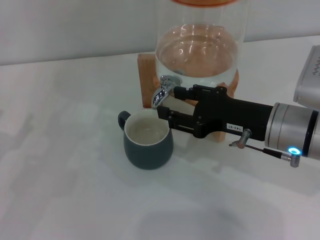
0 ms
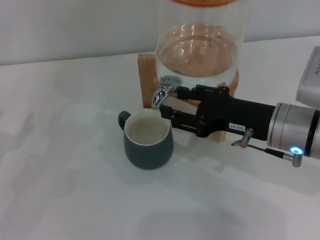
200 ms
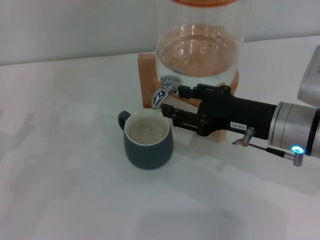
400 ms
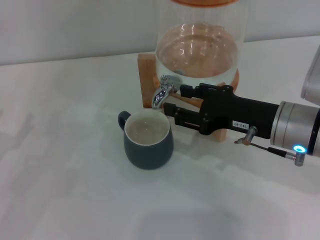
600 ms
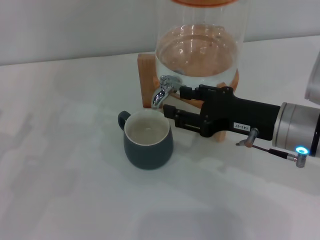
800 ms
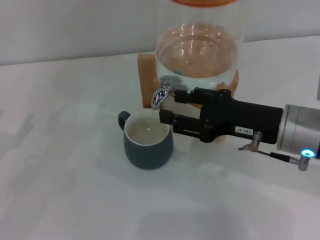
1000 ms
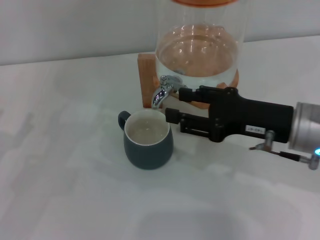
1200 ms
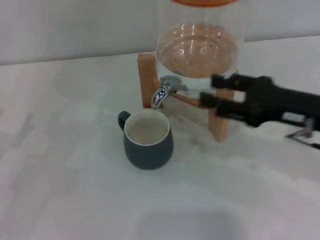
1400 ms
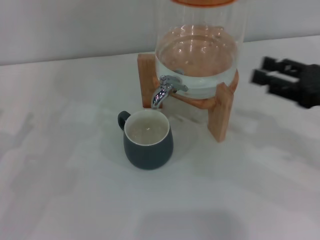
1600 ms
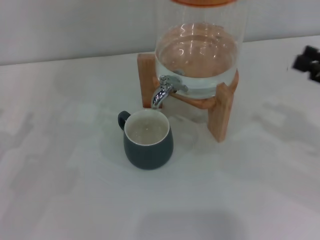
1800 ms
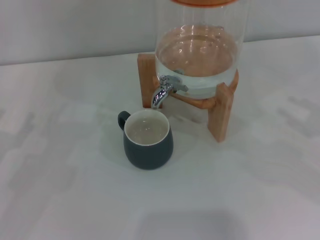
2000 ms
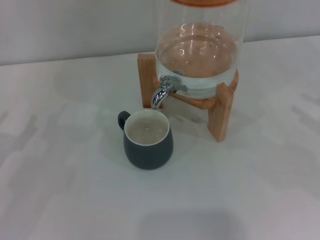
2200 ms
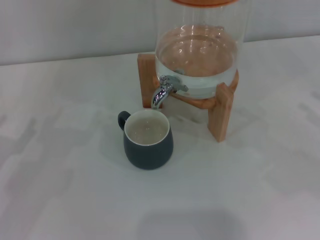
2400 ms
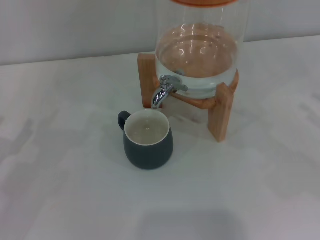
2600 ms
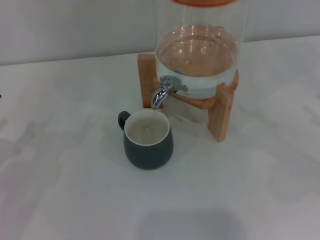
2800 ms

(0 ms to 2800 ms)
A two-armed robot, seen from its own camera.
Task of the whole recording: the left gripper pick up the black cup and place it horizontally under the faucet, the right gripper turn on the faucet to fill the cup, and then turn off the faucet.
0 ms - 1400 ms: The right gripper shifts roughly 5 cm to the right.
1400 ms - 2800 ms: The right gripper moves to the right, about 15 cm.

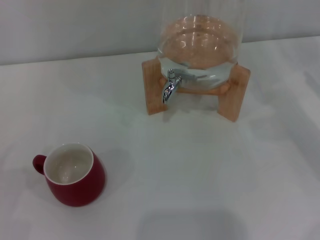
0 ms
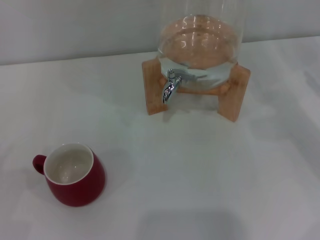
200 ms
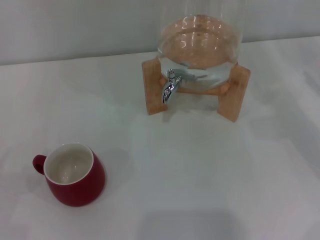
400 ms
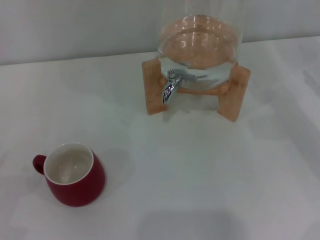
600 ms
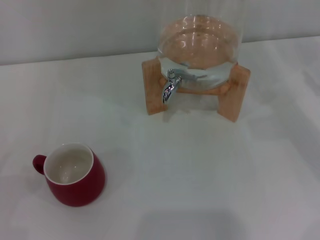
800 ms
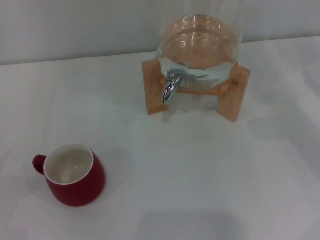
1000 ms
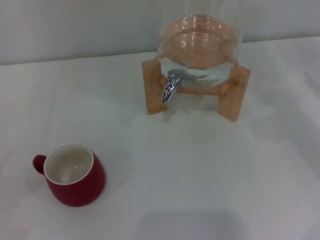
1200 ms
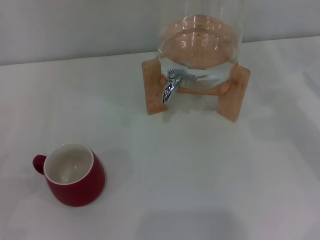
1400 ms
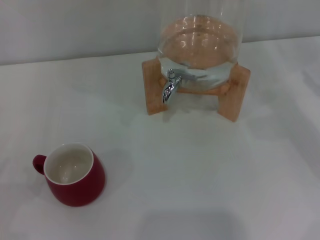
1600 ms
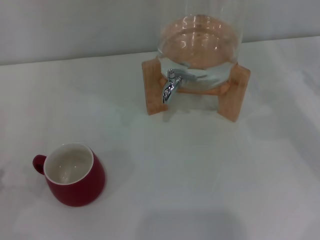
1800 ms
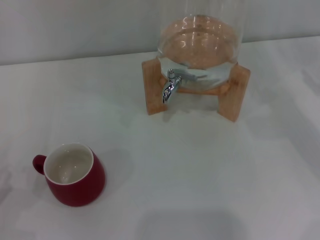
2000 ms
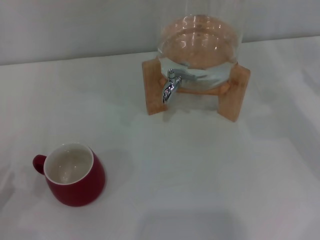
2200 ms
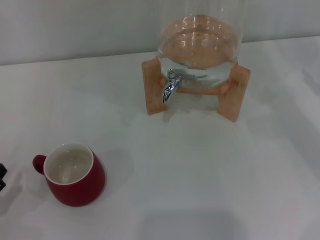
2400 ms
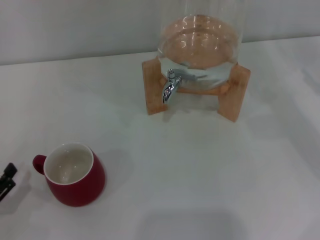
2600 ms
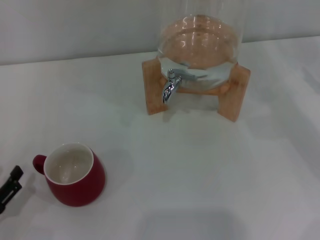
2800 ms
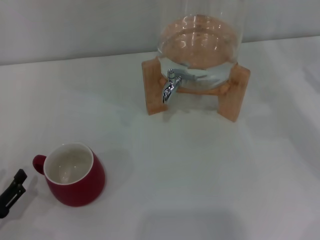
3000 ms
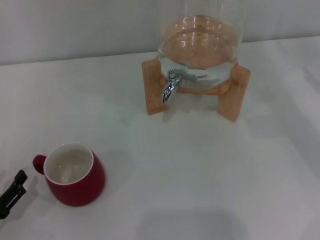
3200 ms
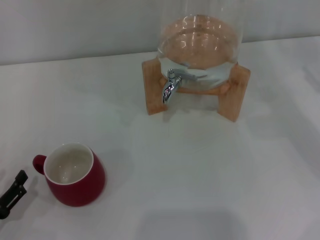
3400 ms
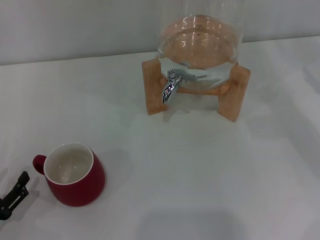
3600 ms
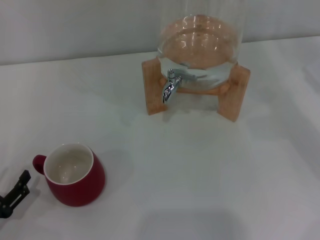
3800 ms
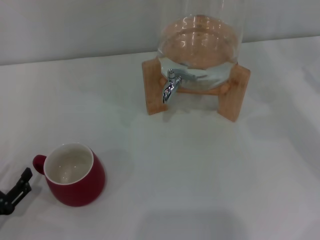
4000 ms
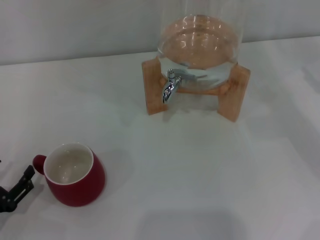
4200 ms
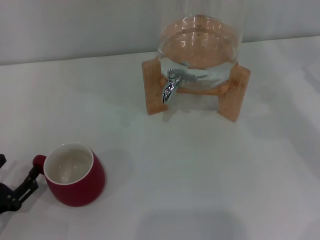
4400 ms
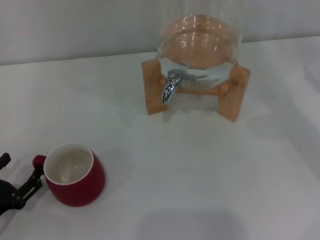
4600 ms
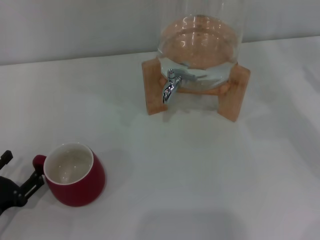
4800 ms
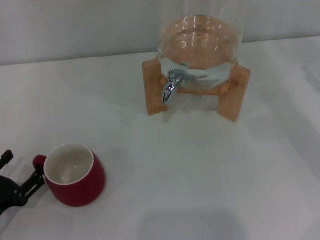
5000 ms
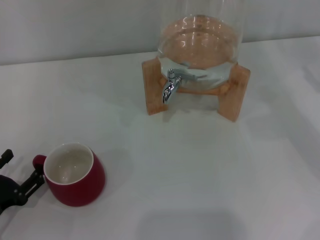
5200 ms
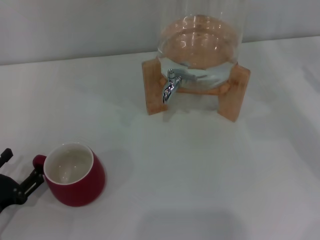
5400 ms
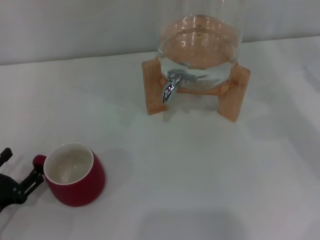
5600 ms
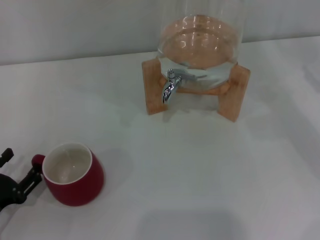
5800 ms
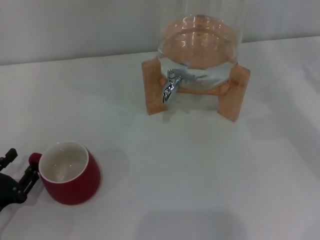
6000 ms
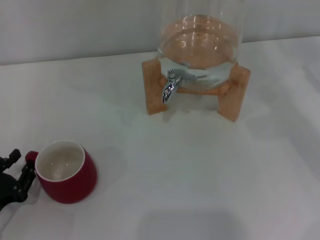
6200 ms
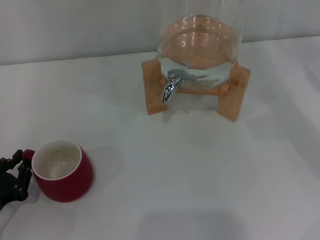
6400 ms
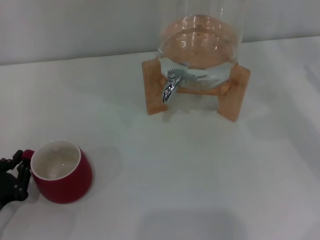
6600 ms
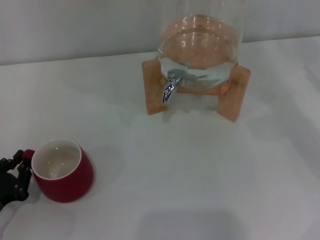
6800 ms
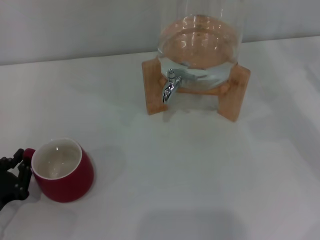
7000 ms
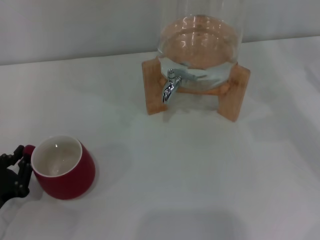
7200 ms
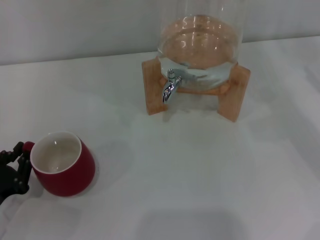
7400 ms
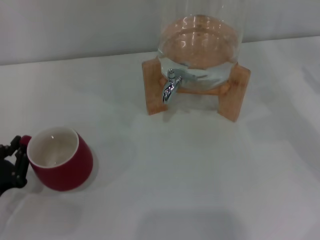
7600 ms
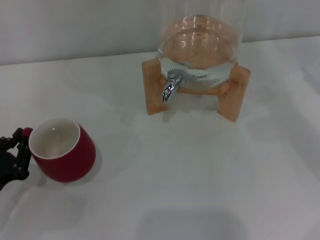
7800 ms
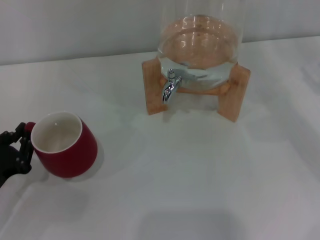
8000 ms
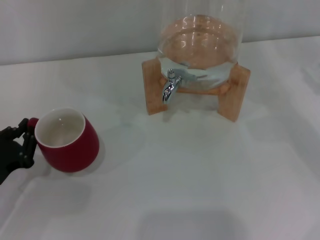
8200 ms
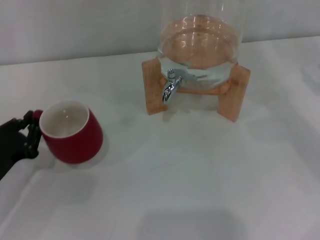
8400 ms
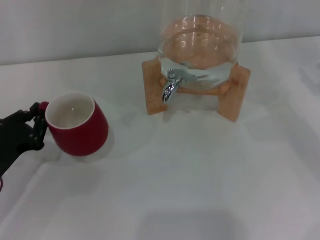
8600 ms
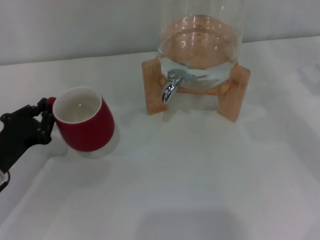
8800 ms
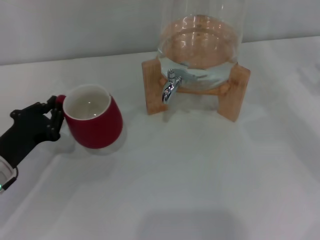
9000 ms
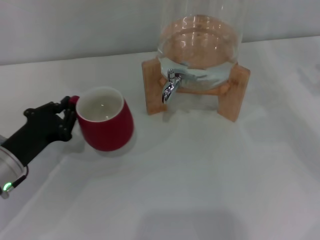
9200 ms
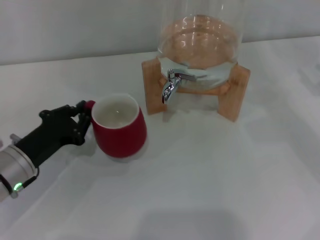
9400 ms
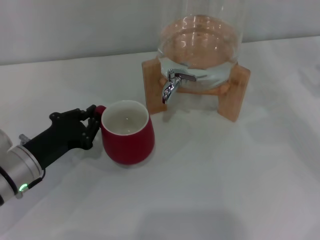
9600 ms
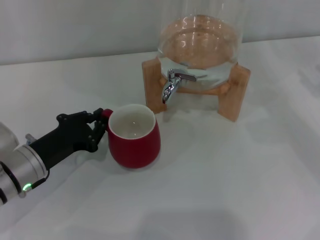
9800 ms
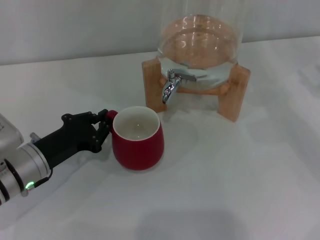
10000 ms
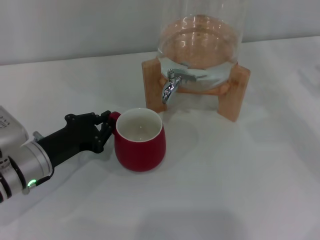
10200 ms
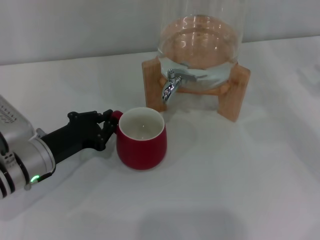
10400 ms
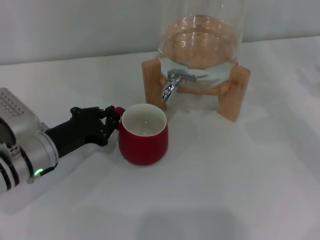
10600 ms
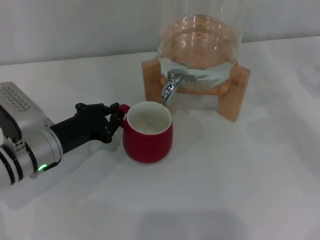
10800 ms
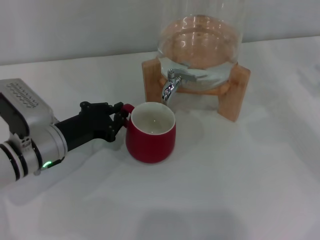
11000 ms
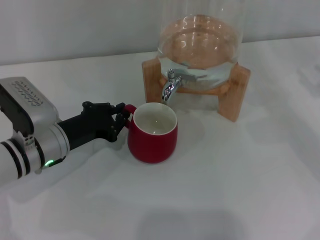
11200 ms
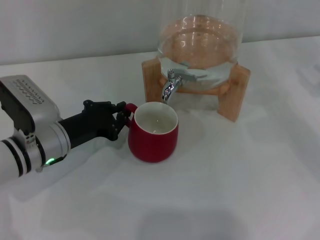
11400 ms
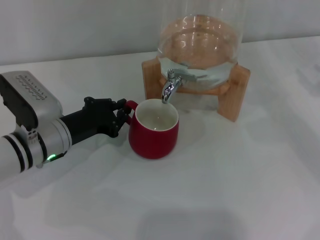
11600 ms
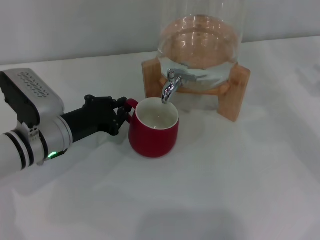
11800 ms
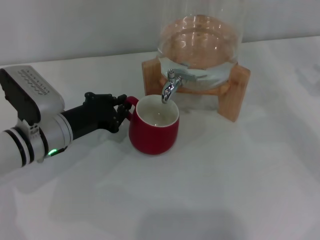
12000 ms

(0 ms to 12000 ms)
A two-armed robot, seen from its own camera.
Task of the whole recording: the left gripper pick up the red cup and place it horizontally under the faucet, the right gripper turn on the faucet to fill the cup, and then turn off the faucet.
1600 ms - 3000 ms: The left gripper heads to the right, covering approximately 5 cm.
3000 ms - 4400 ms: There are only small adjustments of the grippers.
4400 ms - 6000 ms: Both grippers stay about where they are.
6000 ms - 7600 ms: The left gripper closes its fingers.
7600 ms - 9000 ms: The left gripper travels forward by roughly 10 cm.
9000 ms - 10400 ms: The left gripper moves to the right, approximately 5 cm.
10400 ms - 12000 ms: The grippers stay close to where they were, moving slightly.

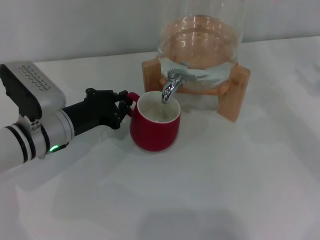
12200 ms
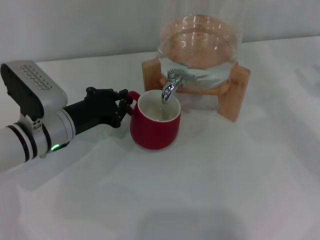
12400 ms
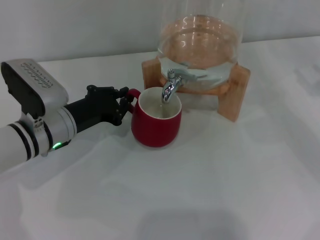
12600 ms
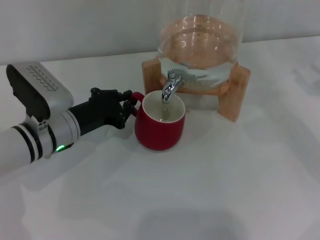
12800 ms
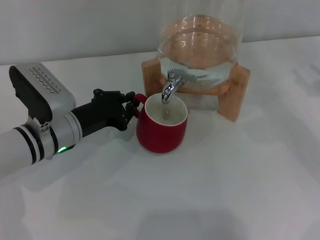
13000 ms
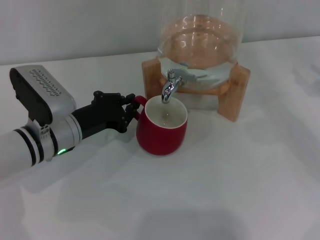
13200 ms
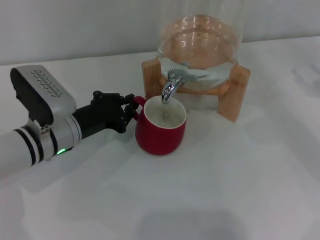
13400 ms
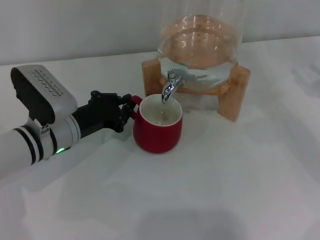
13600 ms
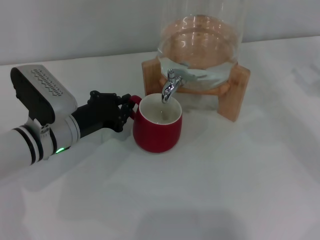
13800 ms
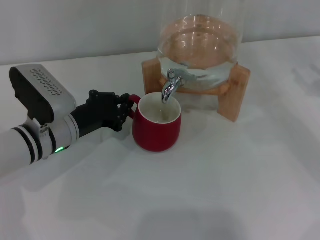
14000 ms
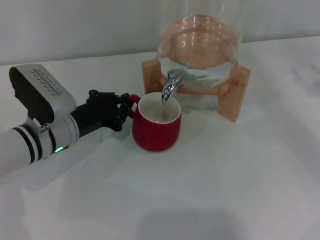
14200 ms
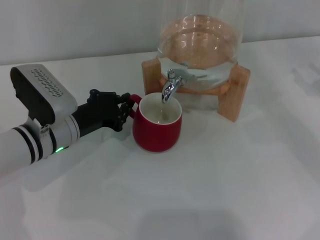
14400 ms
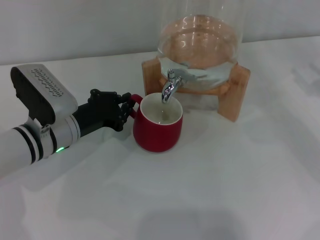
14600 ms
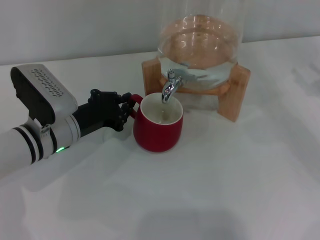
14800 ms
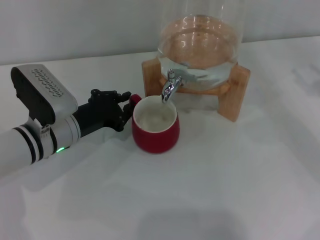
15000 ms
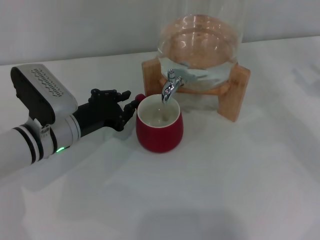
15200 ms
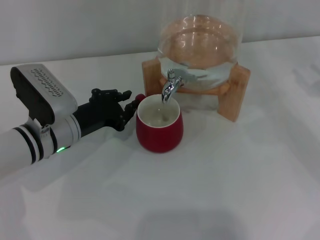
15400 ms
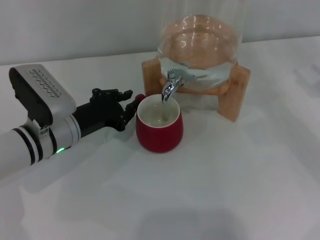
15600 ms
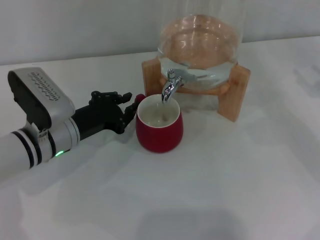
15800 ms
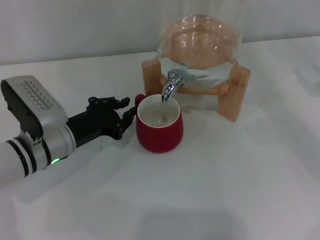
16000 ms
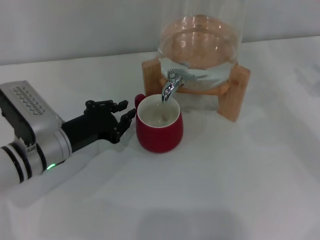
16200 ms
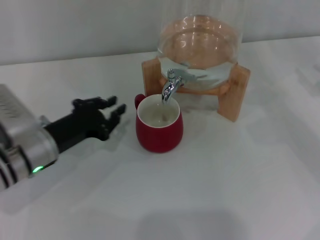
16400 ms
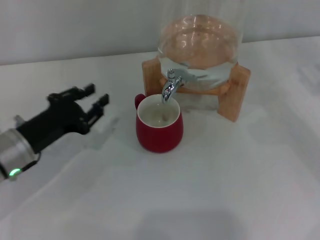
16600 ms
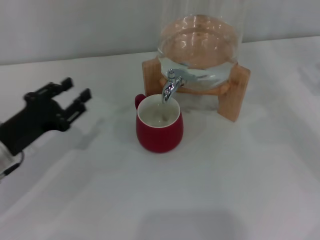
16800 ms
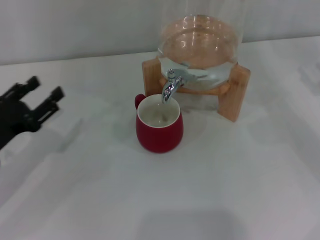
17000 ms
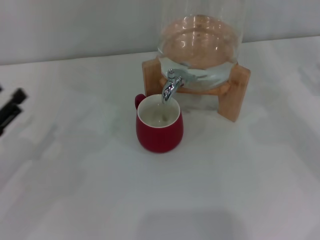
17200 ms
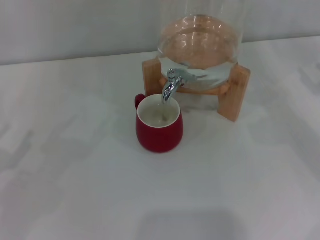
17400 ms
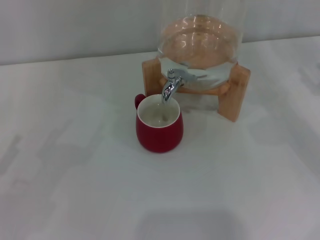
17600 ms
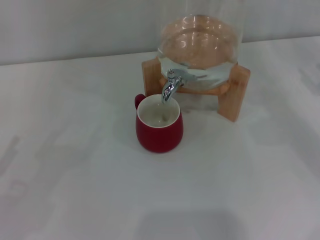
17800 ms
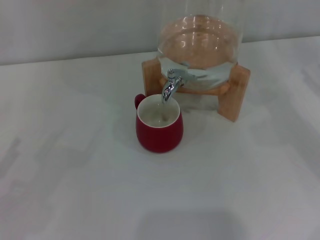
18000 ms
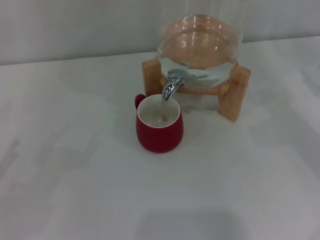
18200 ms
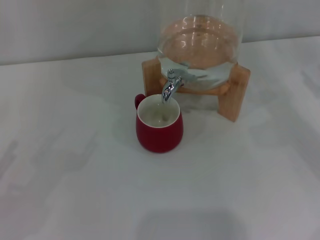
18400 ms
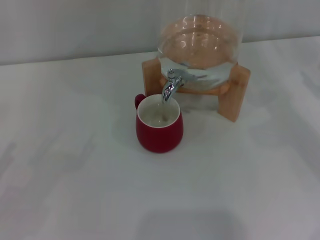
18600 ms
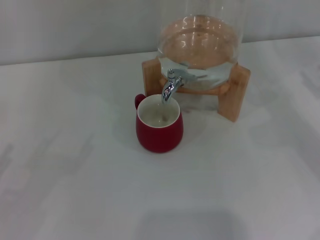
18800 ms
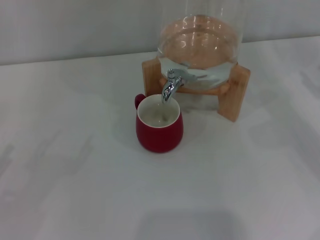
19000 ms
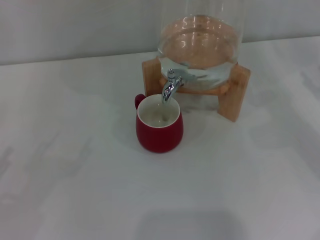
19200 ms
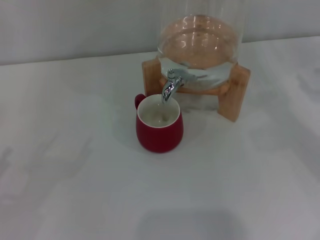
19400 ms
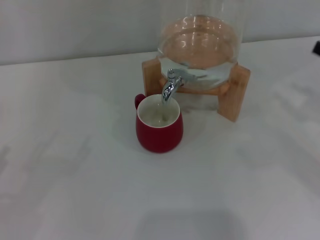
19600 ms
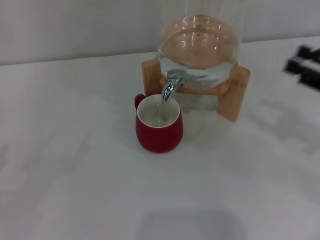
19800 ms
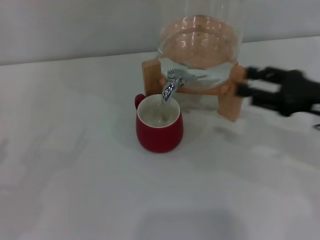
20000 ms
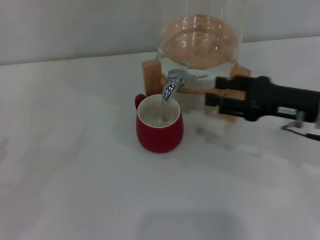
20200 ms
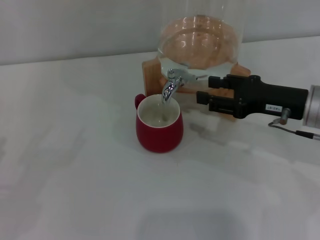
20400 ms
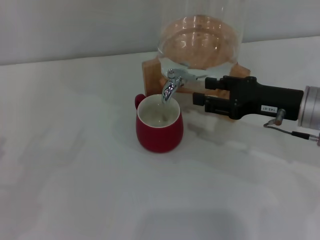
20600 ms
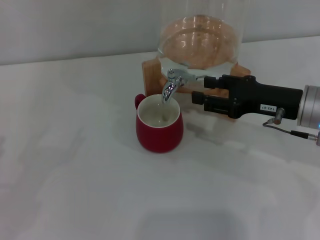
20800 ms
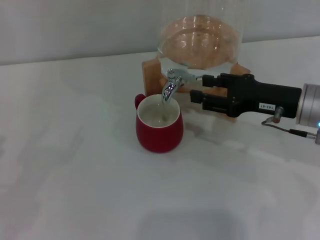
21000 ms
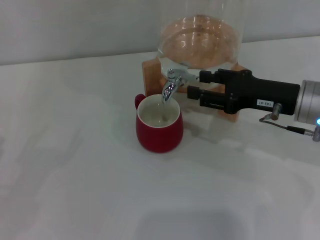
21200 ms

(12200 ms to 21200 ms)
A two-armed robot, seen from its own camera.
Task of the whole recording: the left gripper pick up the red cup and place it horizontally under the faucet, the right gripper turn on the faucet to fill the cup, and then turn off the faucet.
Step, 12200 ms - 16200 ms: Move the cup beneath the water dispenser nozzle with the left gripper.
12200 ms - 15200 ms: Neither gripper changes place.
15200 ms - 16600 ms: The left gripper shifts approximately 5 cm to the left, and opens its fingers.
16600 ms - 18200 ms: The left gripper travels to the left and backward by about 15 cm, and opens up.
18200 ms - 19800 ms: The right gripper travels to the left by about 5 cm.
19800 ms - 21200 ms: The right gripper travels to the left and forward by roughly 15 cm.
